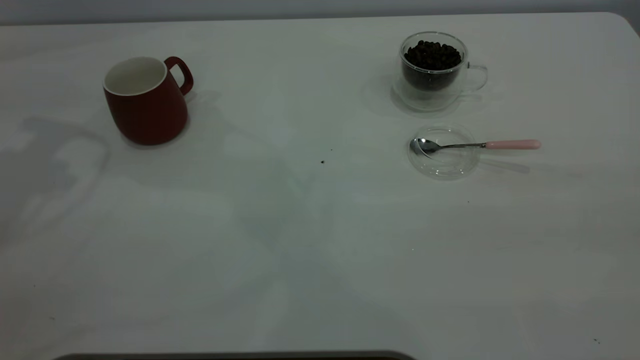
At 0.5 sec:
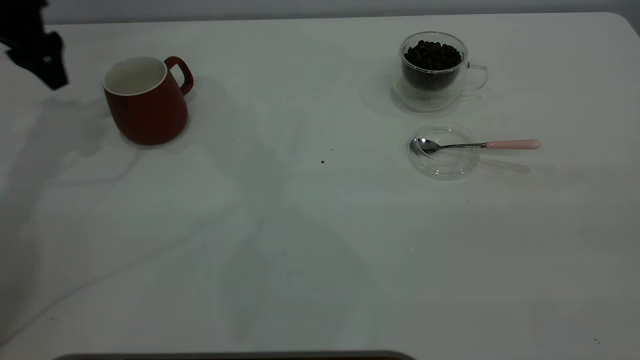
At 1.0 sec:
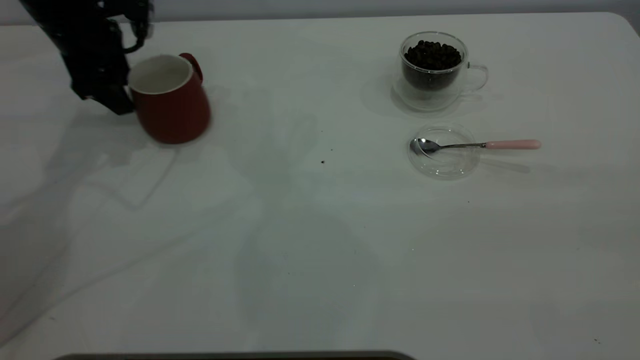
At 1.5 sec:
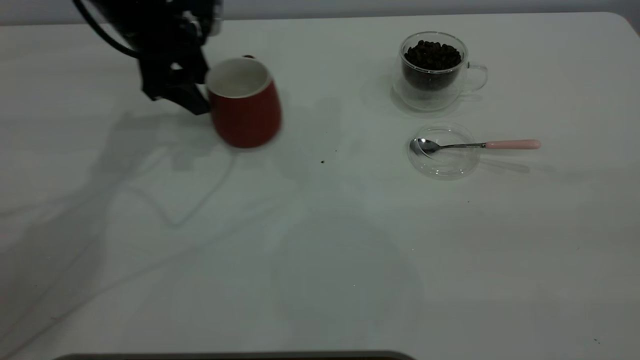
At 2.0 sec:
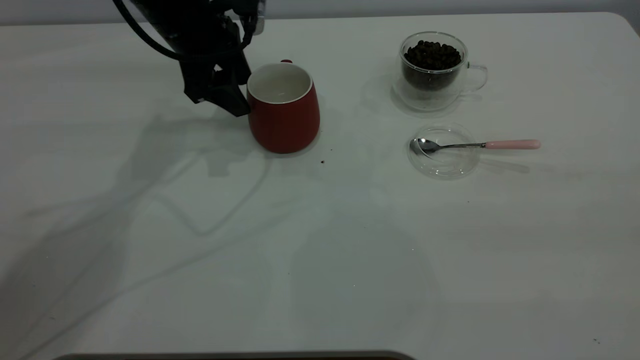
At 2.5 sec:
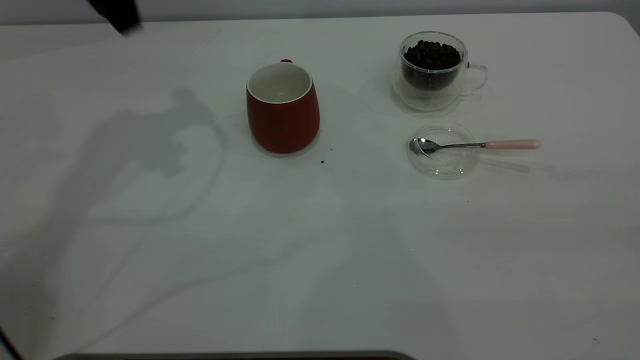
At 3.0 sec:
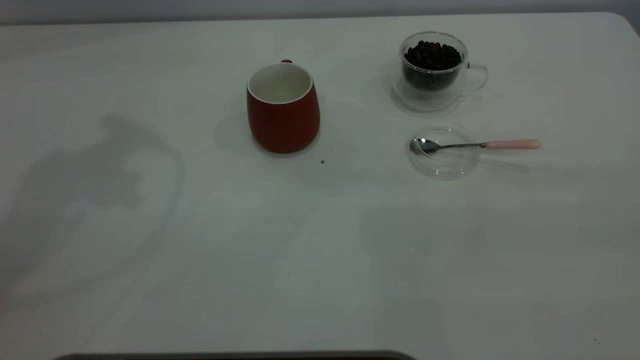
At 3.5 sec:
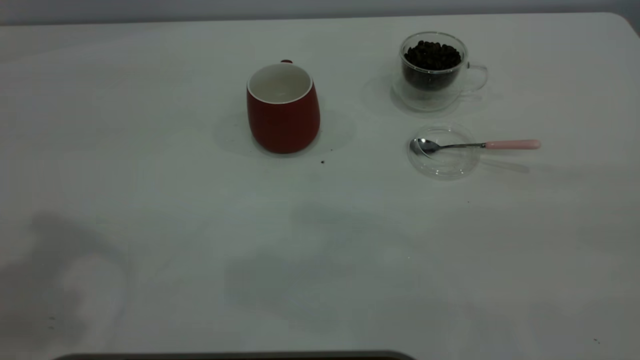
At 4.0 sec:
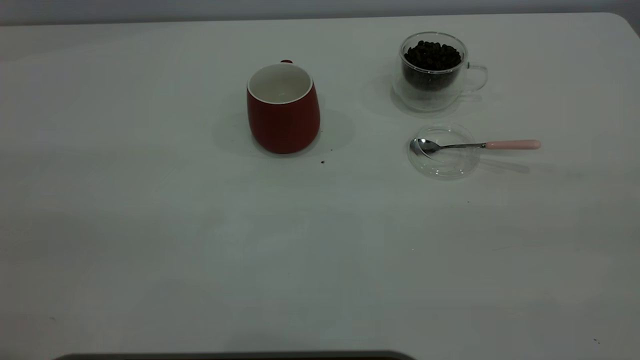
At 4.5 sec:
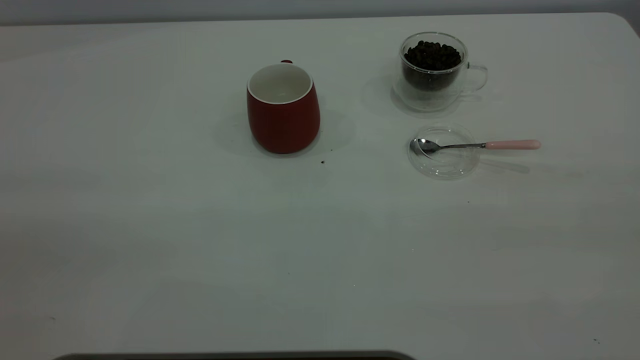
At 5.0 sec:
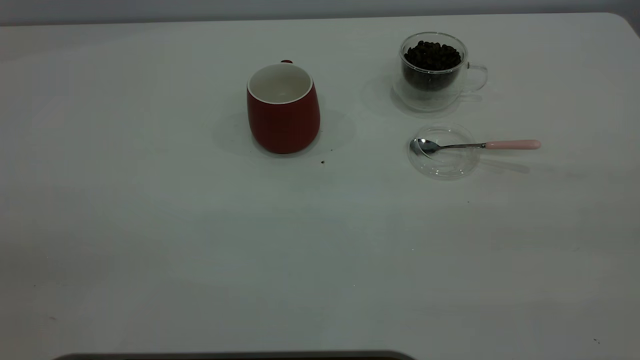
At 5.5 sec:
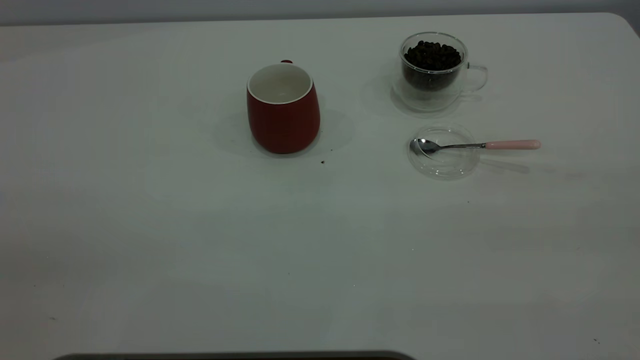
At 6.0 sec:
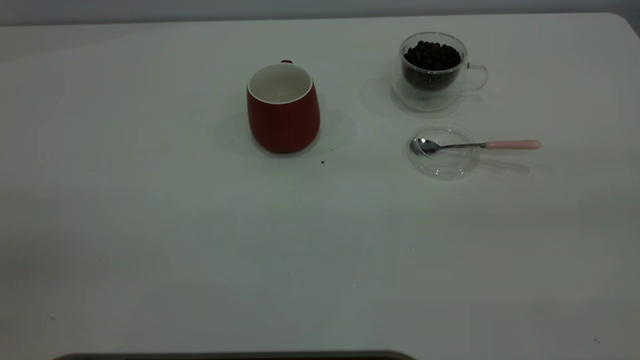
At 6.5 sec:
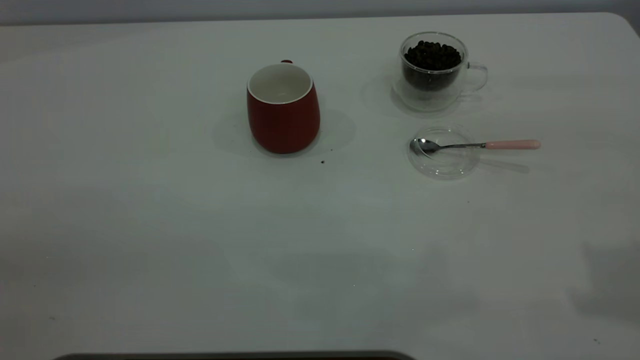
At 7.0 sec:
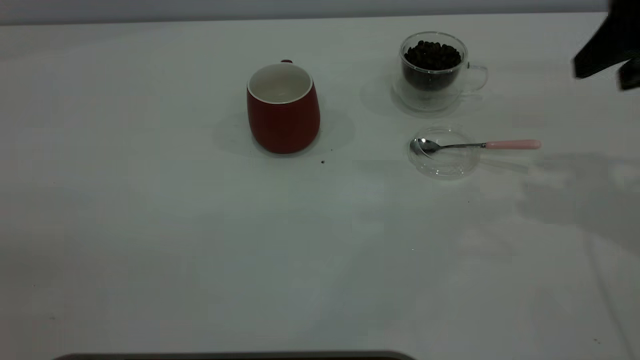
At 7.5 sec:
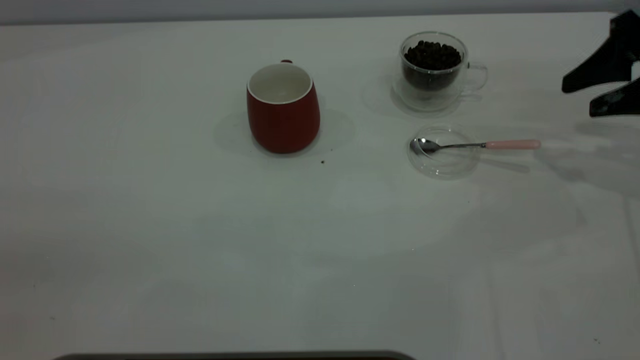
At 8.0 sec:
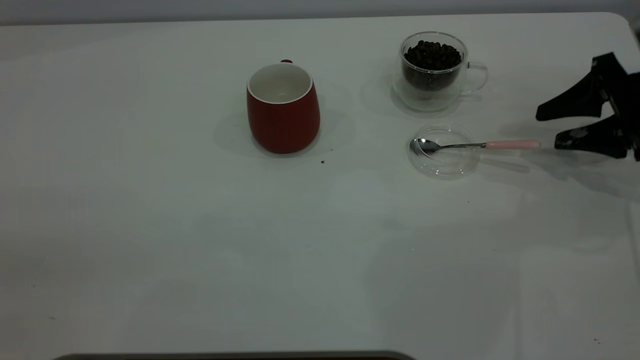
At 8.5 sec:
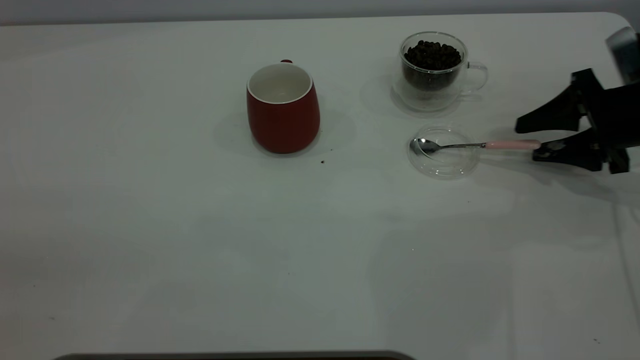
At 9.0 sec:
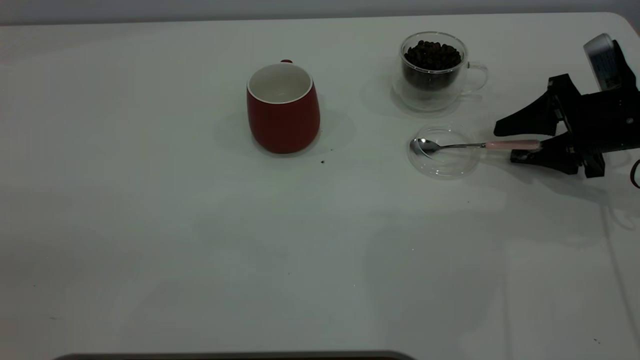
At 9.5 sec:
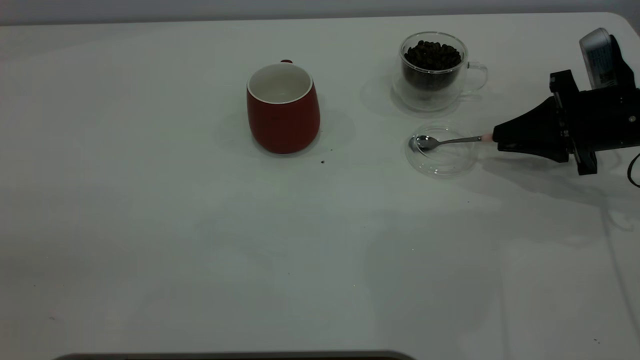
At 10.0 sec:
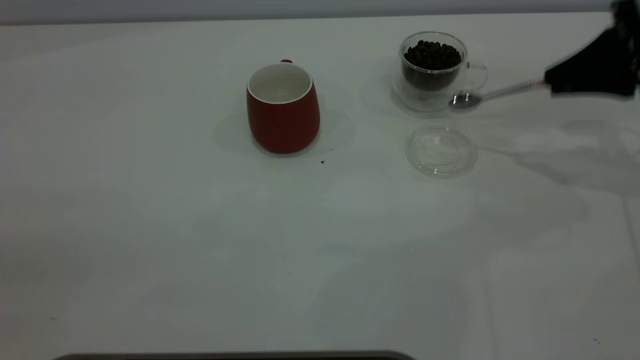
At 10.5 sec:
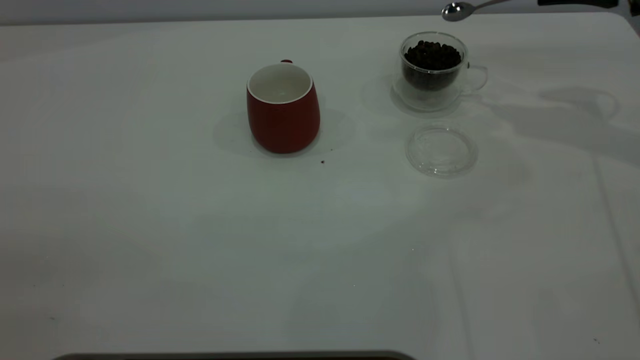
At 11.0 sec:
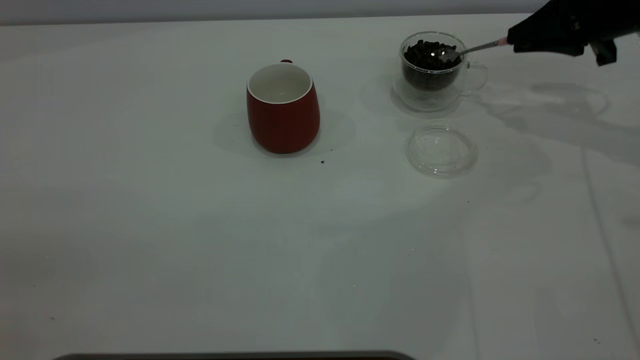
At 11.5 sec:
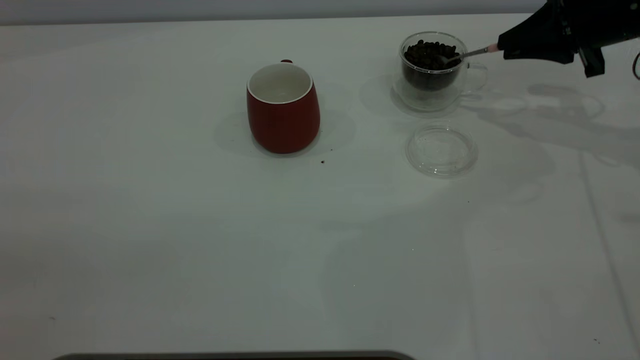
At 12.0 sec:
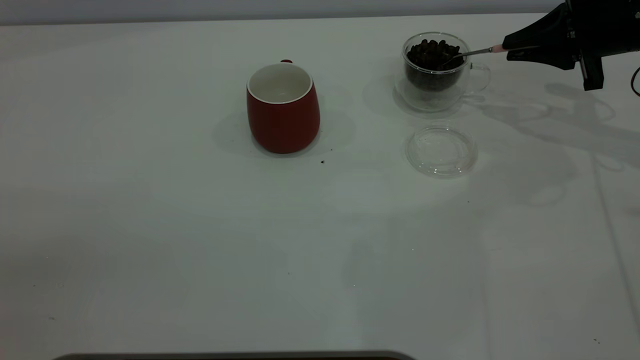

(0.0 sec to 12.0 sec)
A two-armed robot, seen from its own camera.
Task of the whole recording: the left gripper place the red cup in the center of the table, the right gripper take the pink spoon from the cup lid and scoop out the coffee beans from the coffee cup and put them into the red cup, the right gripper put the spoon back into the cup lid.
Step, 0.0 sec - 2.0 sec: Move the cup to the center of view.
Step, 2.5 sec - 9.5 sec: Pick up the spoon.
0.0 sec - 2.0 sec: The left gripper moves to the right and downward, some 20 cm.
2.0 sec - 4.0 sec: The left gripper shifts roughly 40 cm backward and upward.
6.0 sec - 8.0 sec: The right gripper moves forward and downward, approximately 40 cm.
8.0 sec - 10.0 sec: The right gripper heads upward, covering roughly 10 cm, and closes up.
10.0 sec - 12.0 sec: The right gripper shifts roughly 5 cm forward.

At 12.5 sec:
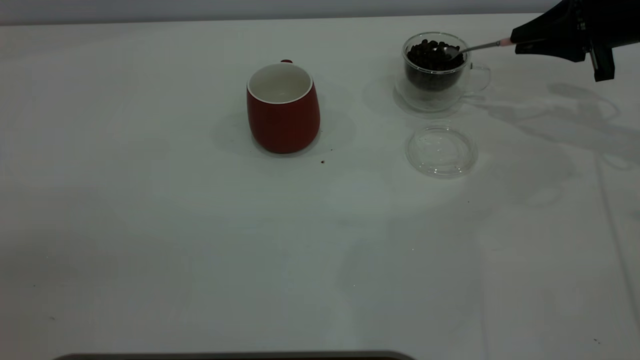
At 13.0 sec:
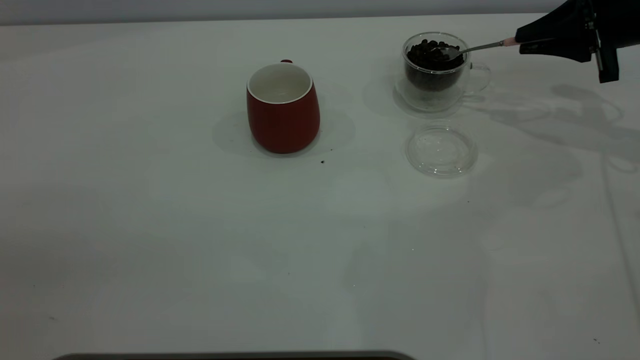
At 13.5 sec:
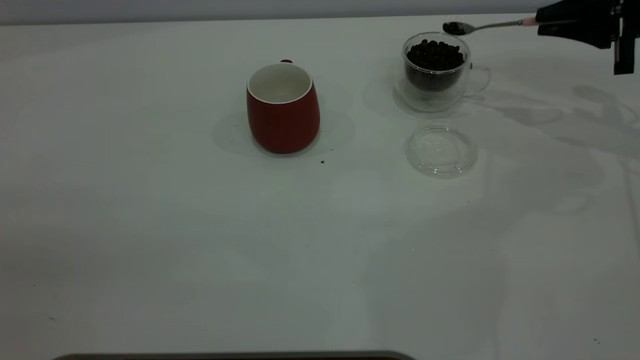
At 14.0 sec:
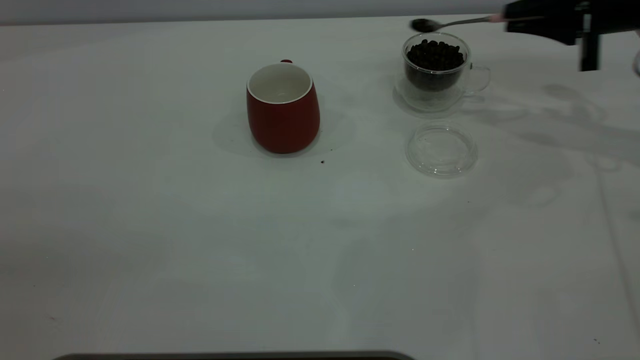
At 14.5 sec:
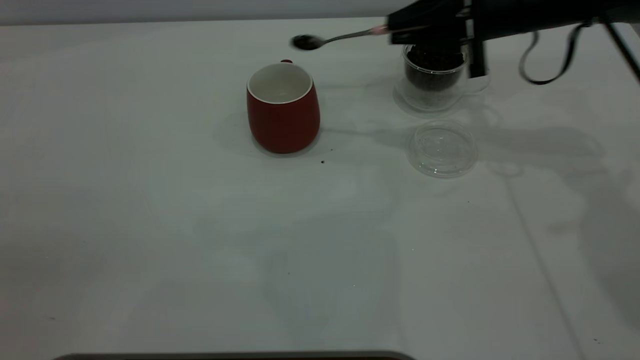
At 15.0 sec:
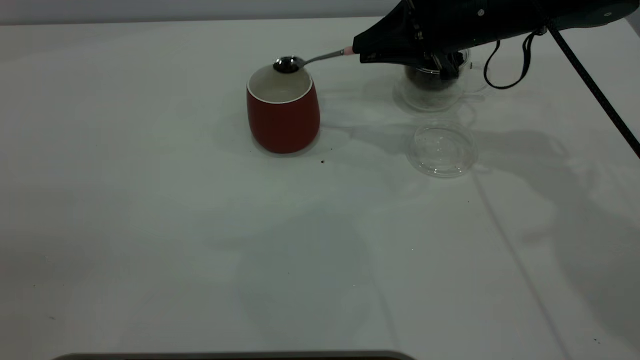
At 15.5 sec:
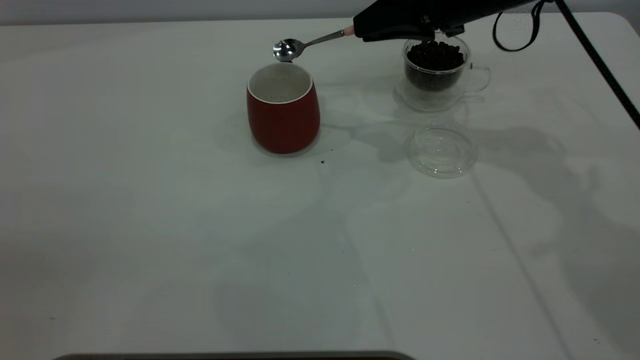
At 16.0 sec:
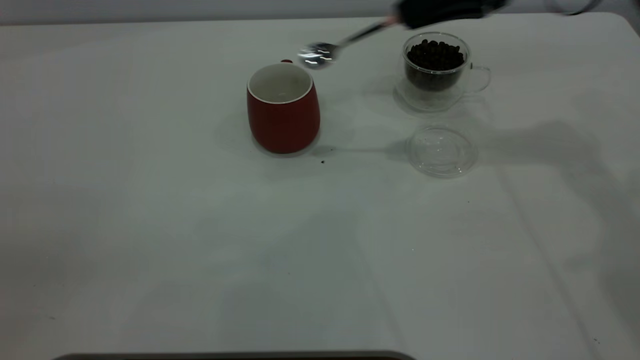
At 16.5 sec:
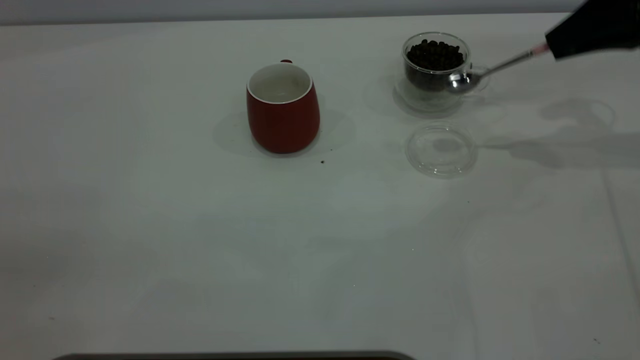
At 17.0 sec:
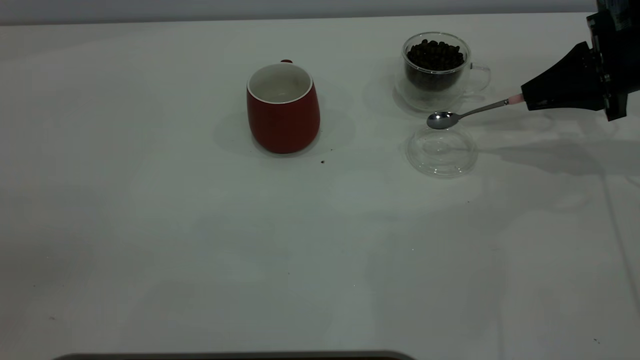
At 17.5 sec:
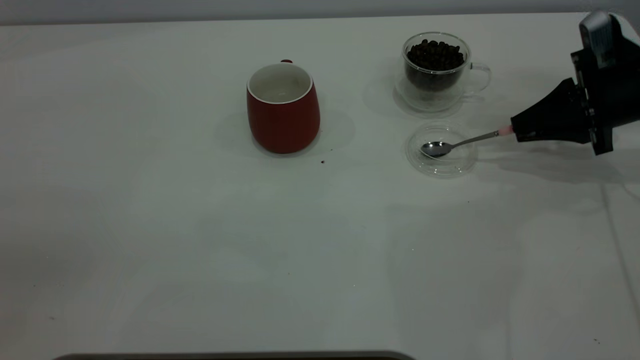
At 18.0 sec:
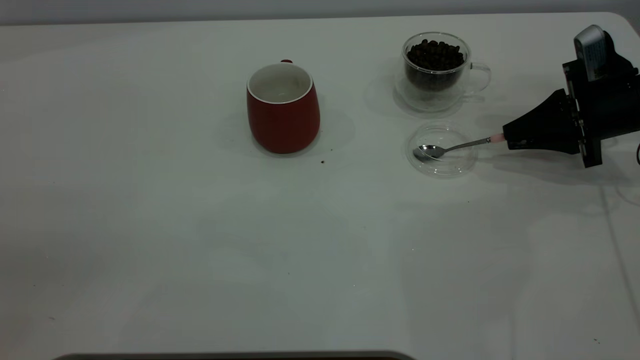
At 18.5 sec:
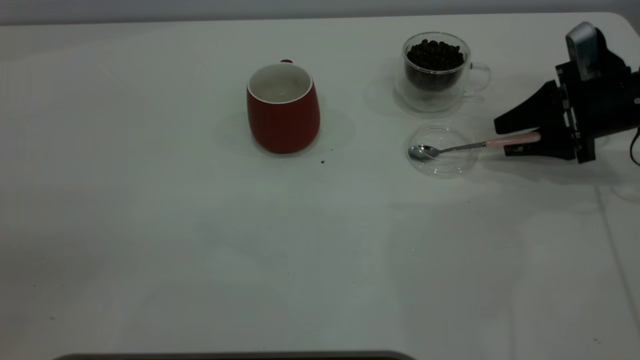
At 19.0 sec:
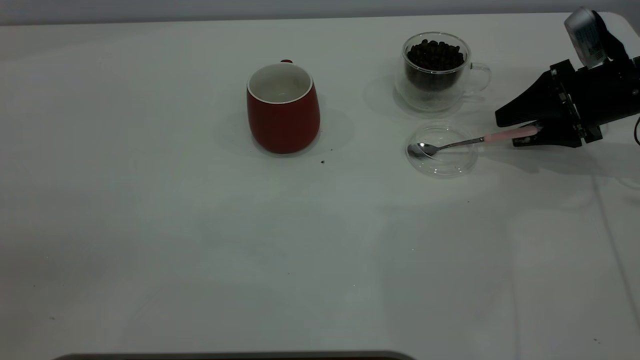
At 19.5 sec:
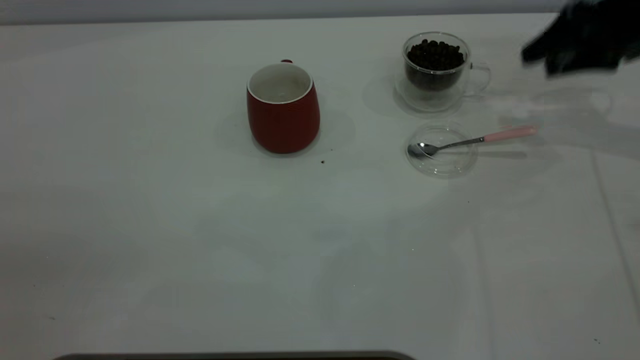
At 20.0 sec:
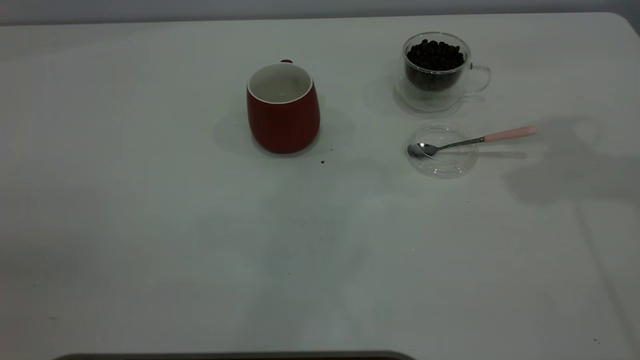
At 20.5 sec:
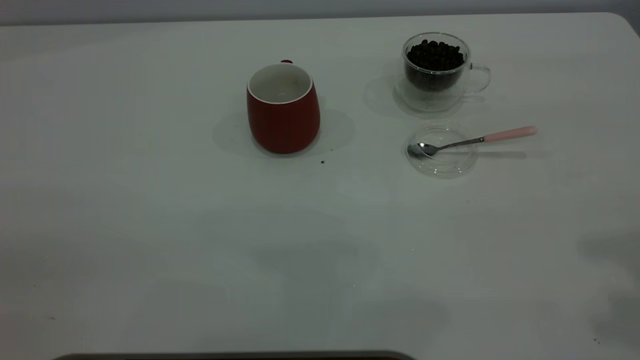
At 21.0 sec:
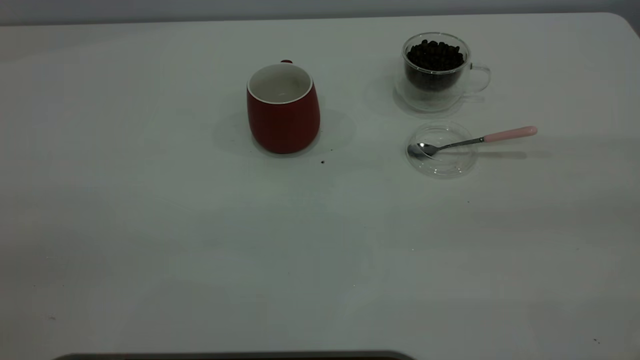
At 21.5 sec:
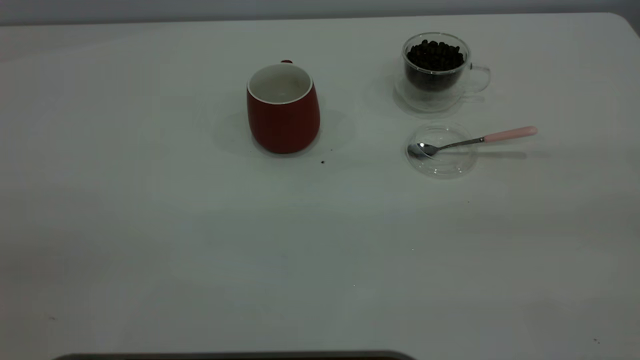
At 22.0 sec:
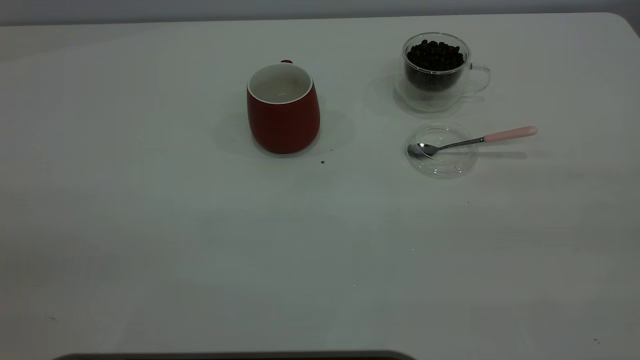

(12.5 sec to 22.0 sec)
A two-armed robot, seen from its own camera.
Task of the whole recording: the left gripper place the red cup in the center of the table, the right gripper take the pink spoon from the cup lid and scoop out the coffee beans from the coffee cup and put them into the red cup, the right gripper put the spoon back into the cup lid.
Step, 12.5 sec - 15.5 sec: Scoop a spoonful of beans into the cup.
Step, 16.0 sec - 19.0 sec: Place the spoon back in its original place.
12.5 sec - 14.5 sec: The right gripper is displaced to the left by roughly 15 cm.
14.5 sec - 16.5 sec: The right gripper goes some 15 cm to the right.
16.5 sec - 18.0 sec: The right gripper travels downward by some 10 cm.
18.0 sec - 20.0 sec: The right gripper travels upward by some 35 cm, and opens up.
